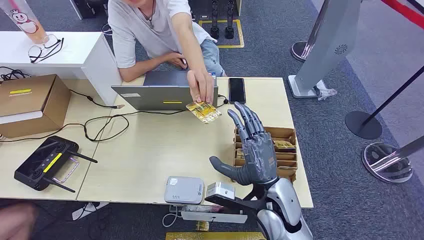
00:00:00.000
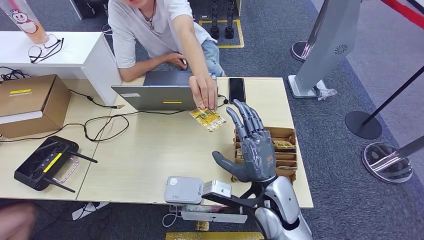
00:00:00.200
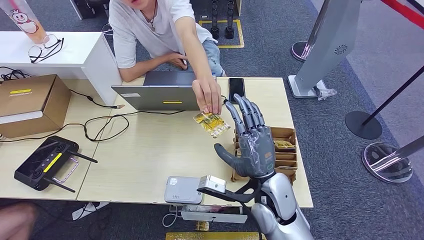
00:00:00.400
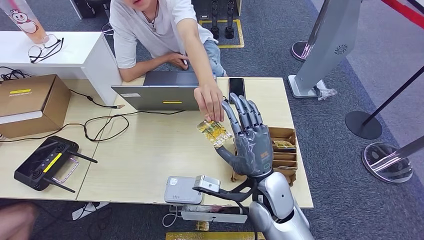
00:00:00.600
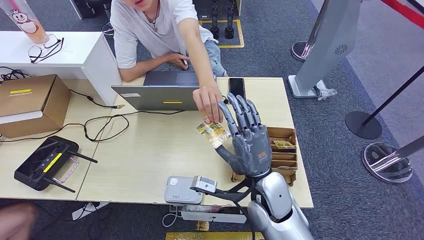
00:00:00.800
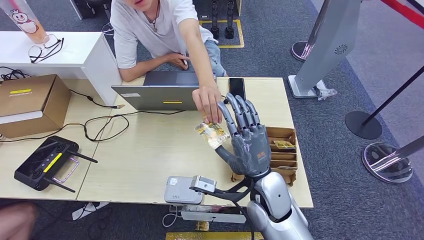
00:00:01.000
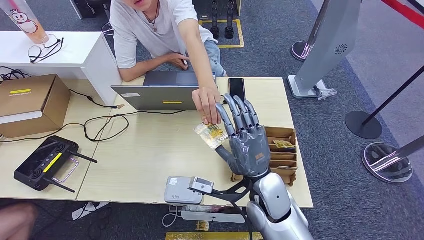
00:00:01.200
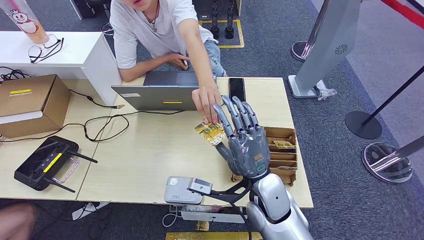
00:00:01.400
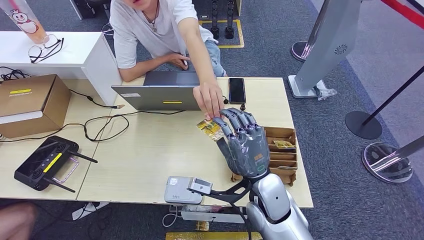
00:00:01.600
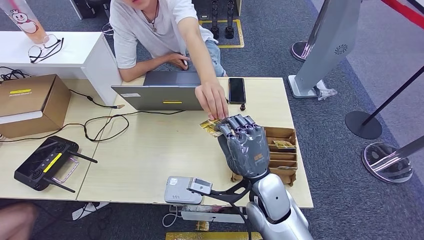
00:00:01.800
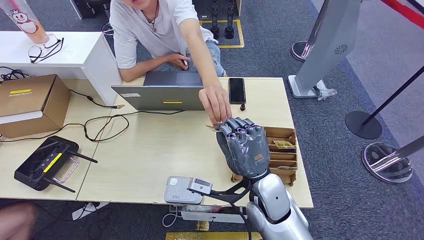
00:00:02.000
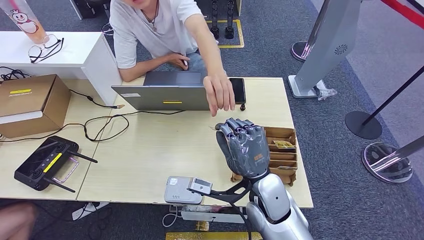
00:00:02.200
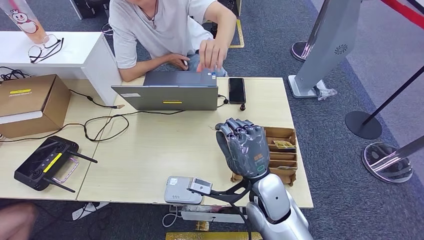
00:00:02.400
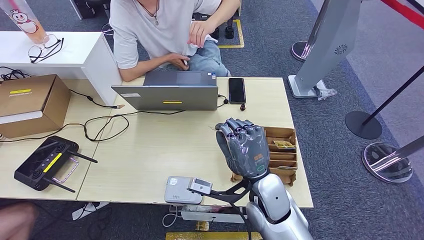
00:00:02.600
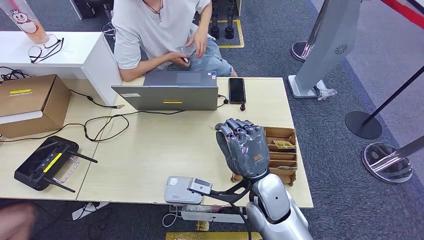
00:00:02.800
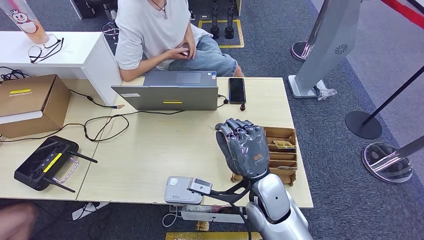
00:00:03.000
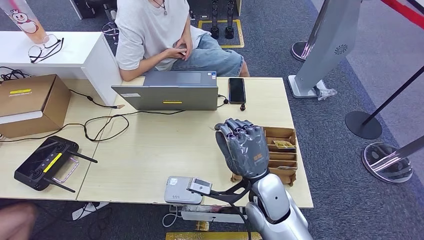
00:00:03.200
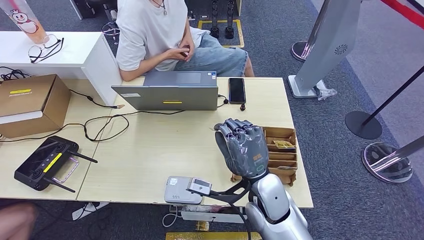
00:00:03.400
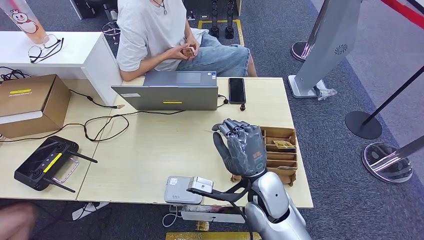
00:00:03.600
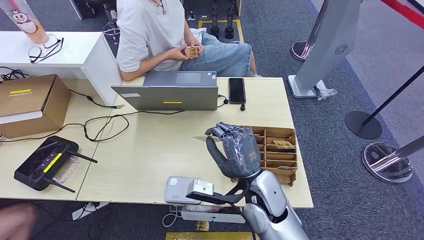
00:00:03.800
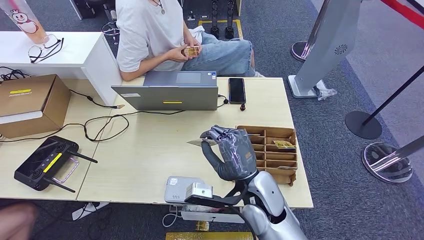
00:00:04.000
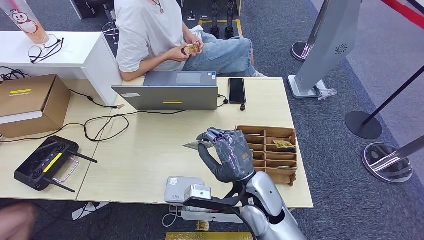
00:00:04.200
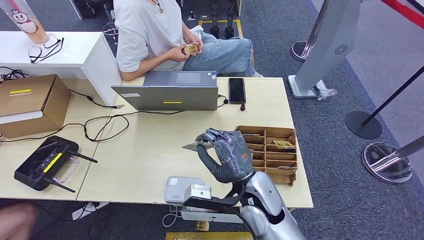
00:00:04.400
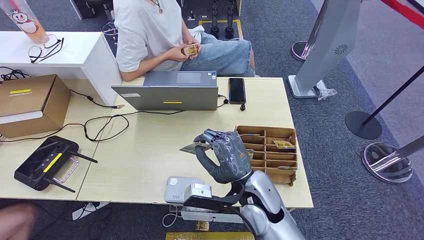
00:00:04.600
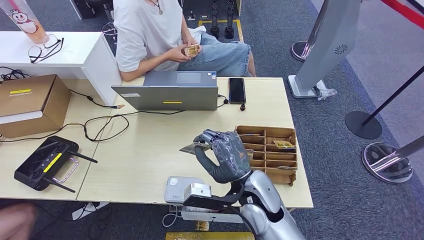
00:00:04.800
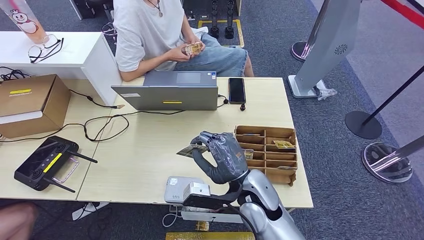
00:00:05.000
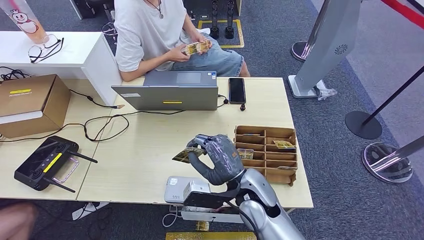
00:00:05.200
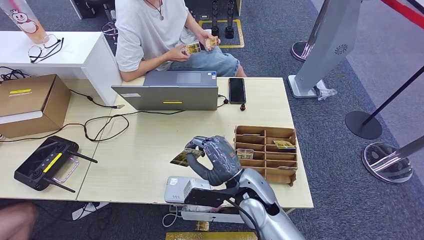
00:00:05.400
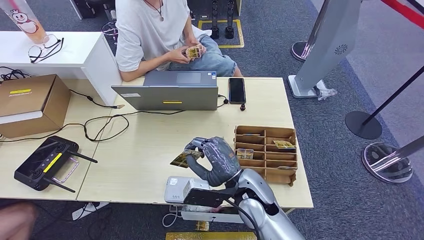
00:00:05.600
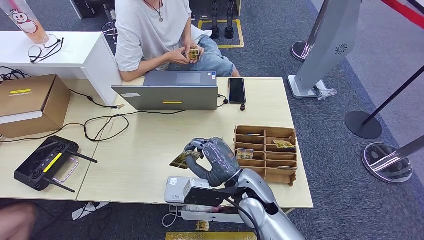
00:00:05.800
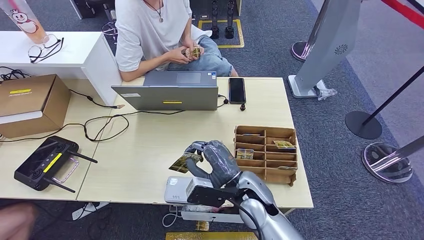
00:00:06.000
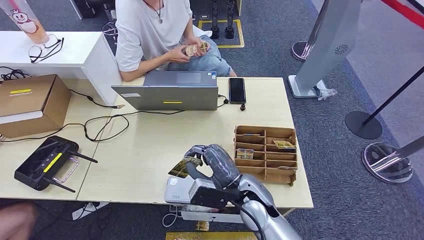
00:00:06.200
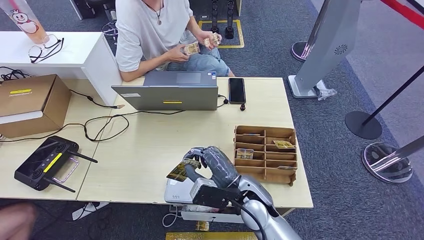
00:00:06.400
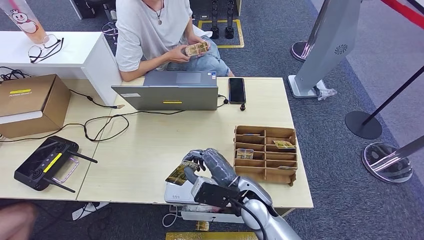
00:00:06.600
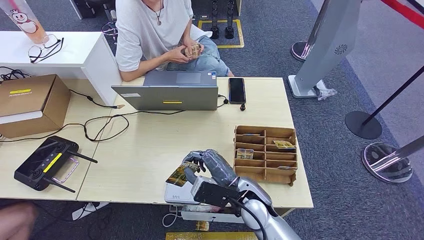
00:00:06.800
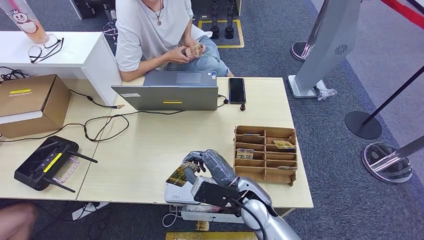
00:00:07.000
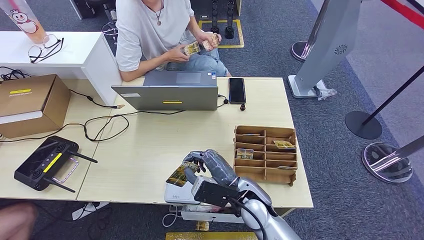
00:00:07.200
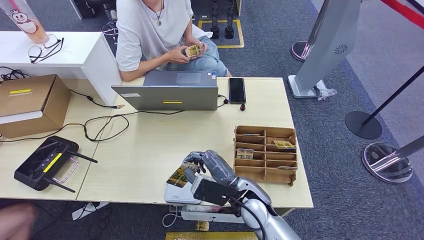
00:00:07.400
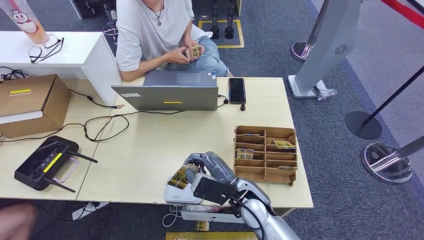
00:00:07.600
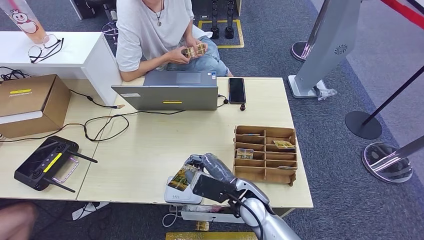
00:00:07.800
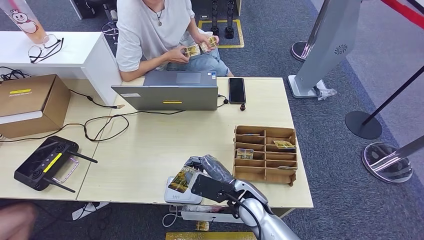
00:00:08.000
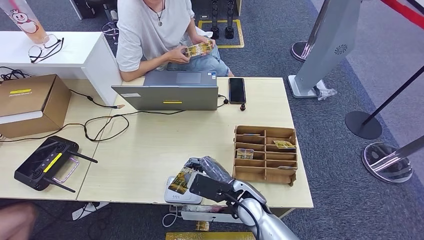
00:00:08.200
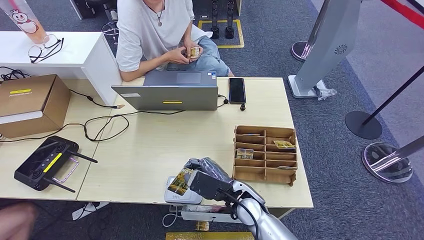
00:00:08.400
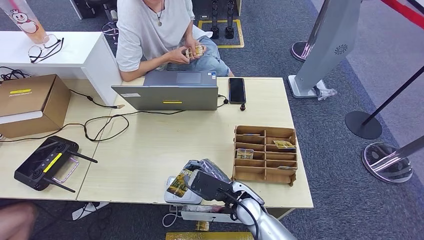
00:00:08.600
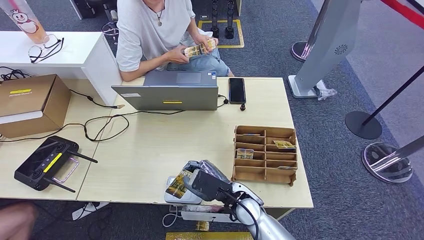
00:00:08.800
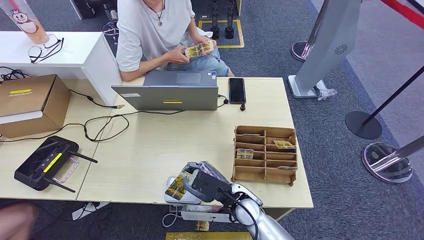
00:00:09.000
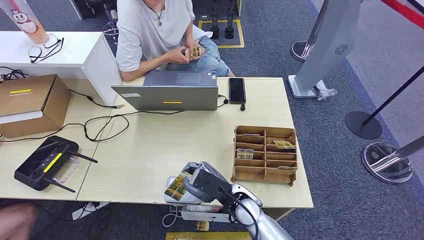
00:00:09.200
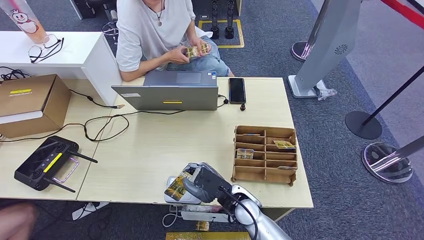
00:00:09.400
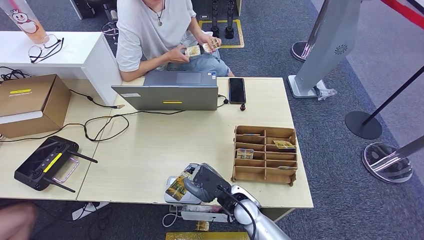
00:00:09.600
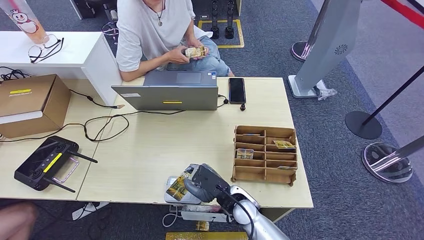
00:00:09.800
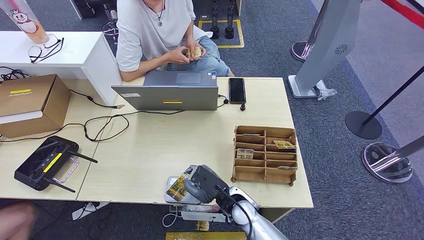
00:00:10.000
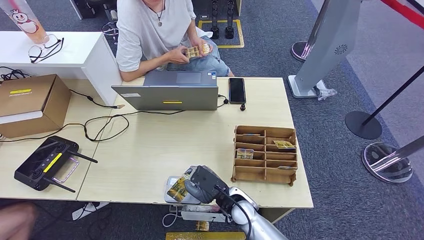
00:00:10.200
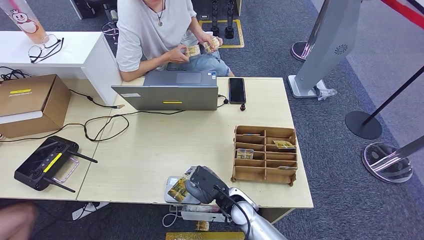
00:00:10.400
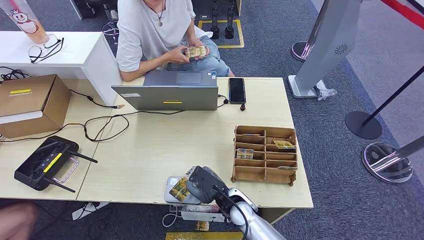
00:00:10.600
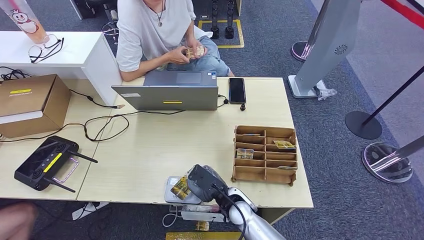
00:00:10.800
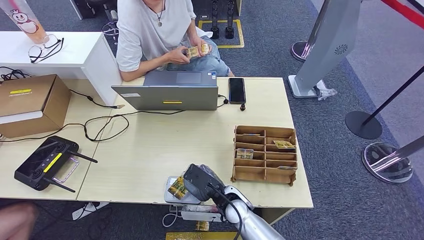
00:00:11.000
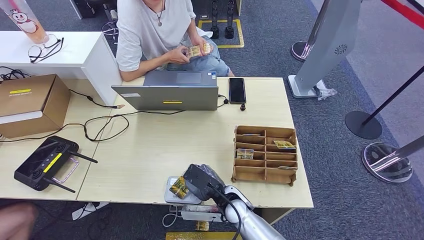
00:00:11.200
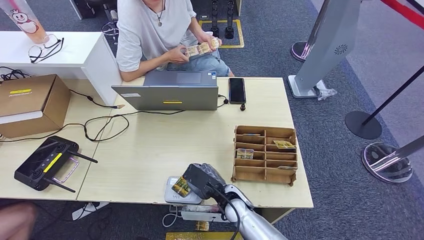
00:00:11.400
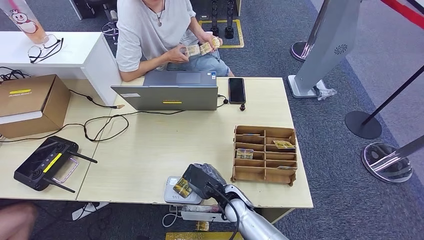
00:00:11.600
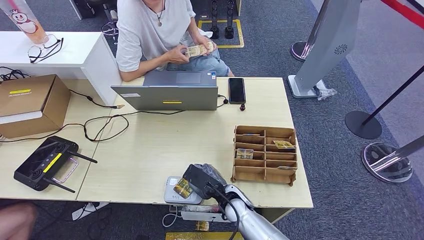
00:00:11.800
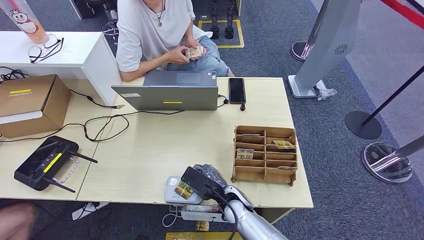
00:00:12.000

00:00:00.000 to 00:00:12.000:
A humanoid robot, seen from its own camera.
Step, 00:00:00.000 to 00:00:02.200: Take the ID card from the person's hand.
00:00:01.600 to 00:00:03.000: Both hands stay put.
00:00:06.000 to 00:00:07.600: The hands move only a little.
00:00:07.600 to 00:00:09.000: There are only small adjustments of the hands.
00:00:09.000 to 00:00:10.400: There are only small adjustments of the hands.
00:00:10.400 to 00:00:12.000: There are only small adjustments of the hands.

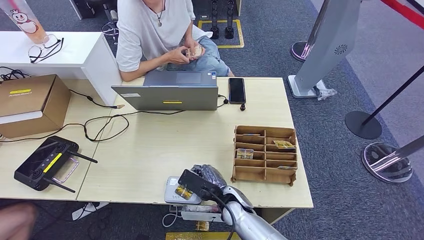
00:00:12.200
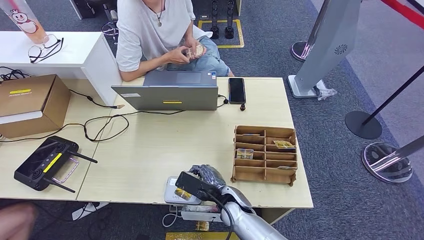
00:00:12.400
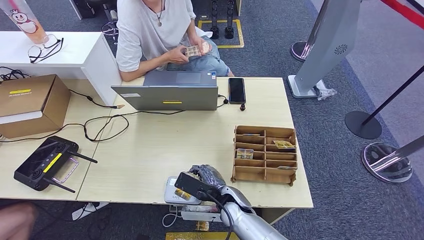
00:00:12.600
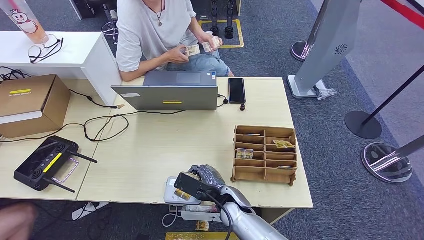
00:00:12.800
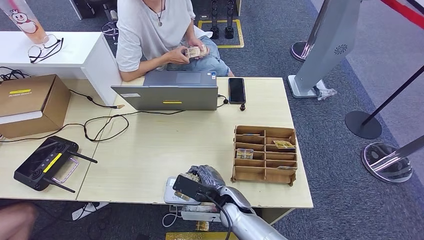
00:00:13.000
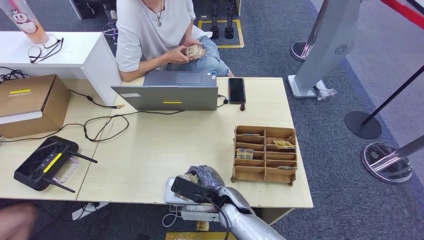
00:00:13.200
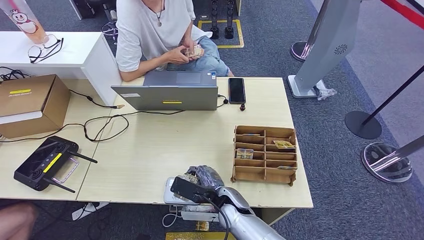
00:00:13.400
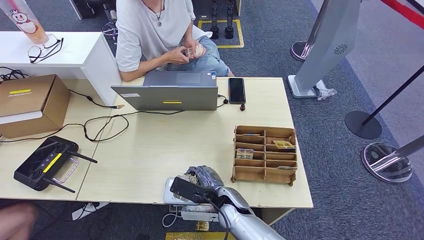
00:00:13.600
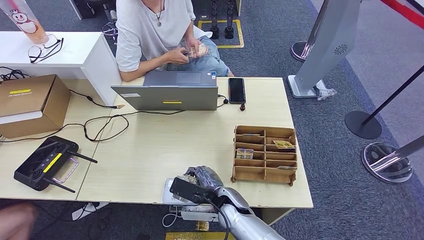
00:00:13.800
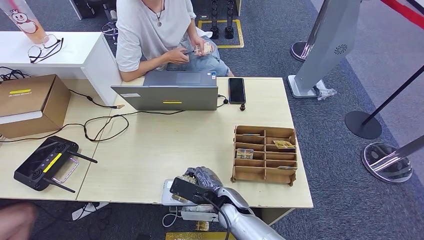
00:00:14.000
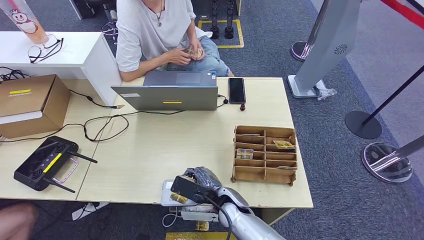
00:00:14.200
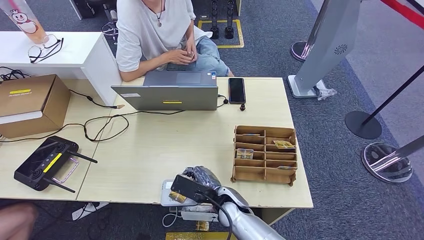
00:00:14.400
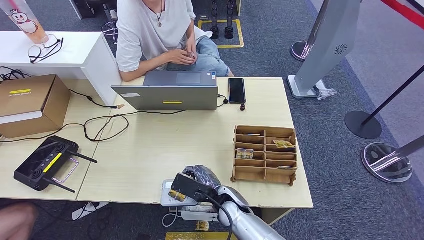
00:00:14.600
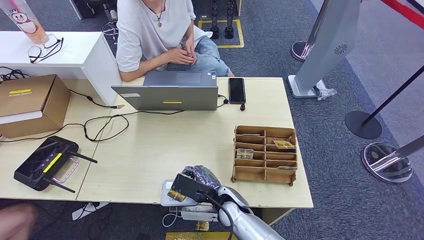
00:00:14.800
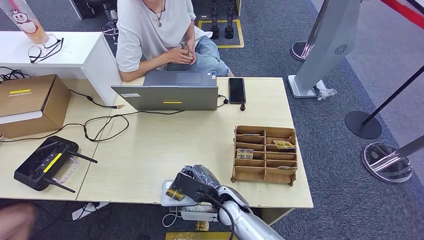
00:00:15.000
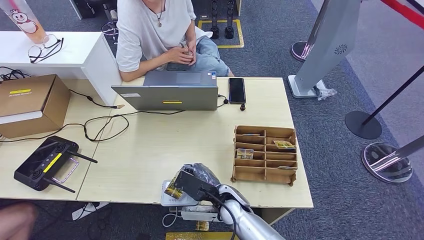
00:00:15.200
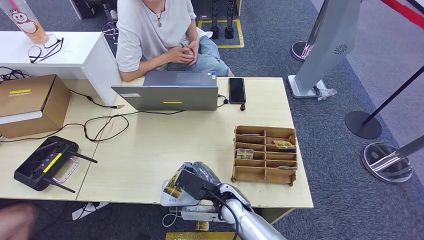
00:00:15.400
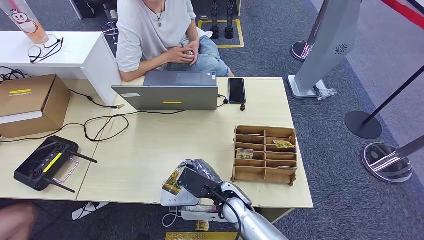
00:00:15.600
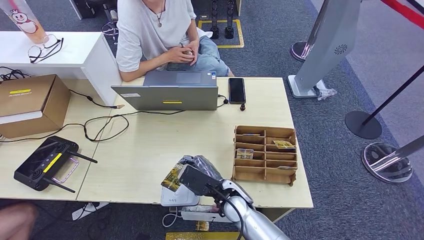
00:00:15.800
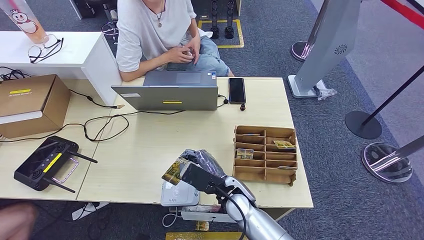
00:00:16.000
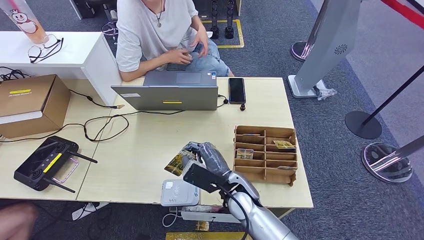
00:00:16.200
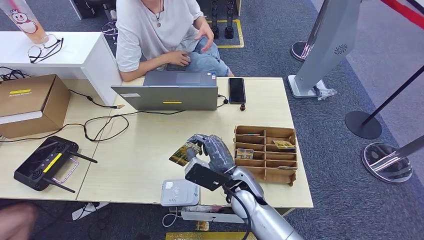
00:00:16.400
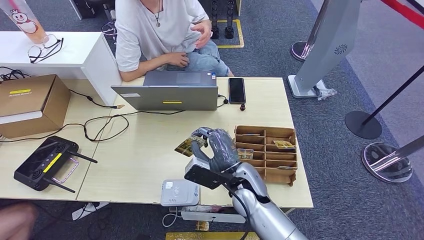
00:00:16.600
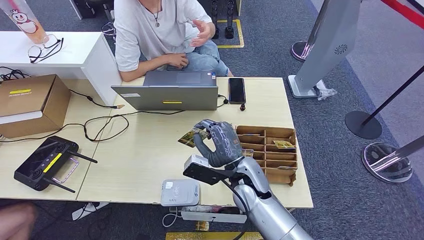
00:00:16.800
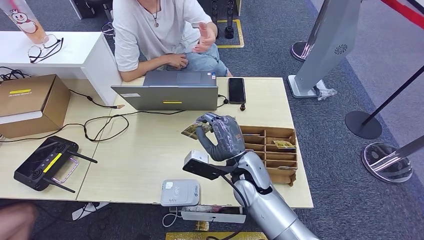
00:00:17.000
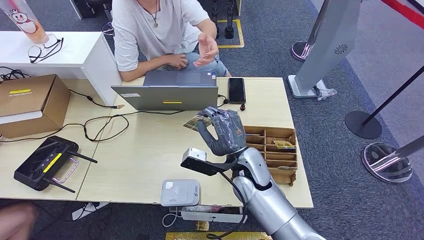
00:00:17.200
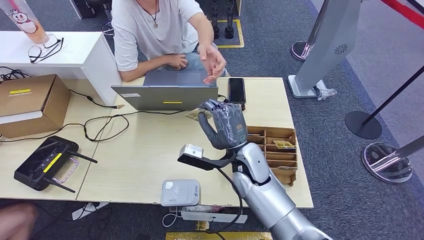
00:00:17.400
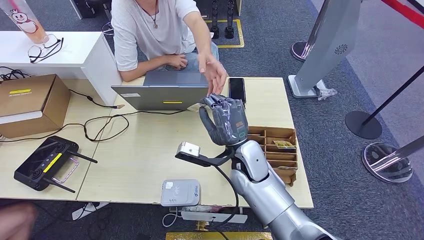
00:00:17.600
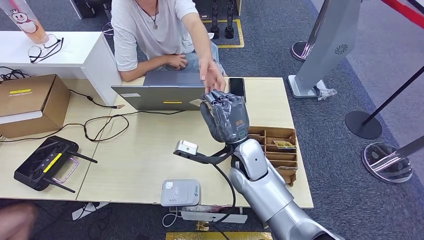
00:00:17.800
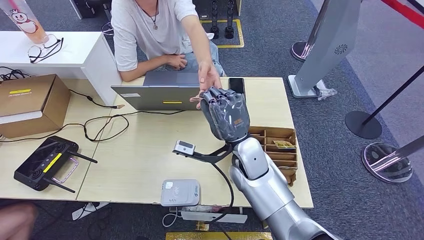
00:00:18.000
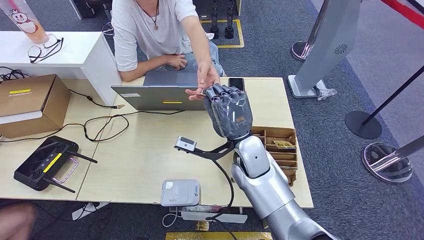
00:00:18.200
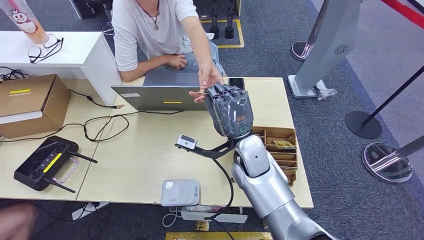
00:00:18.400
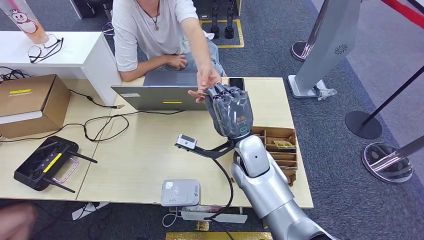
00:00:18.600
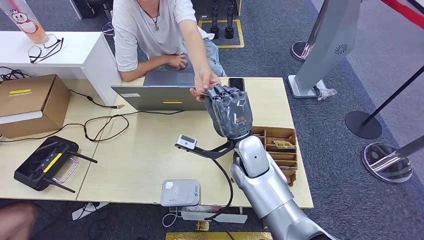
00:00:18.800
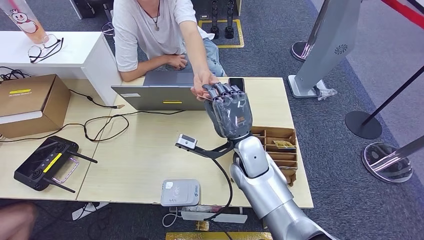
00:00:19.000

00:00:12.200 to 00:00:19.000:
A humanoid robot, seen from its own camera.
00:00:12.200 to 00:00:15.000: The hands stay close to where they were, moving slightly.
00:00:15.000 to 00:00:16.200: The right hand heads upward, covering about 5 cm.
00:00:16.200 to 00:00:17.600: The right hand goes about 10 cm upward and forward.
00:00:17.600 to 00:00:19.000: There are only small adjustments of the hands.
